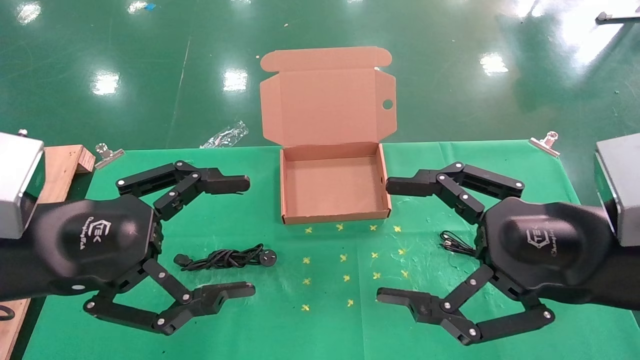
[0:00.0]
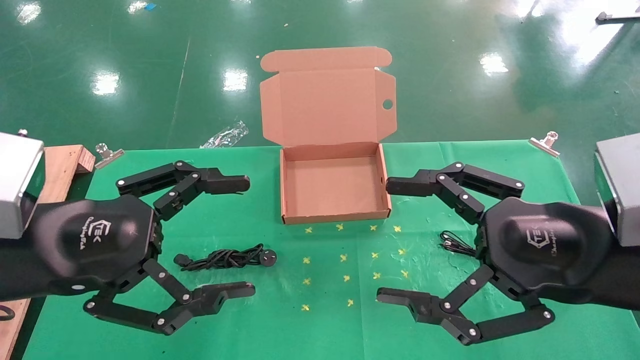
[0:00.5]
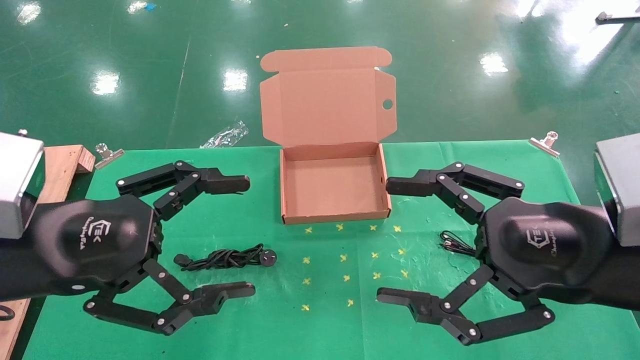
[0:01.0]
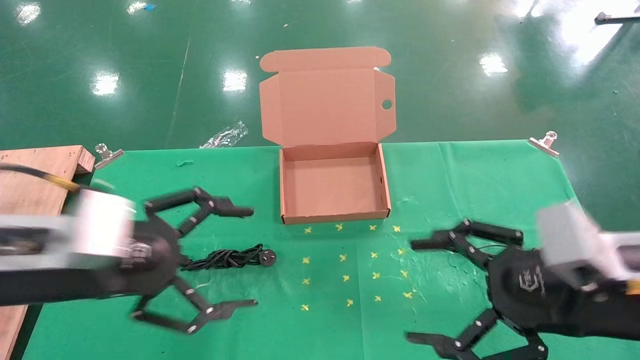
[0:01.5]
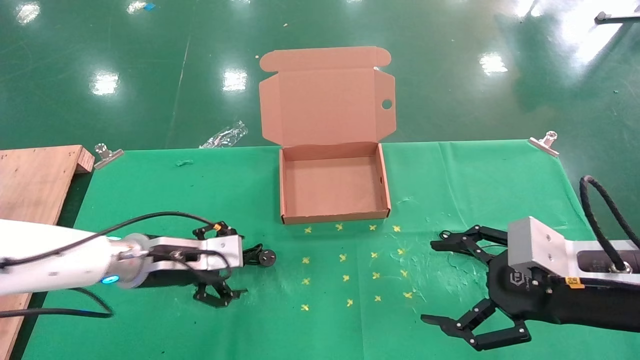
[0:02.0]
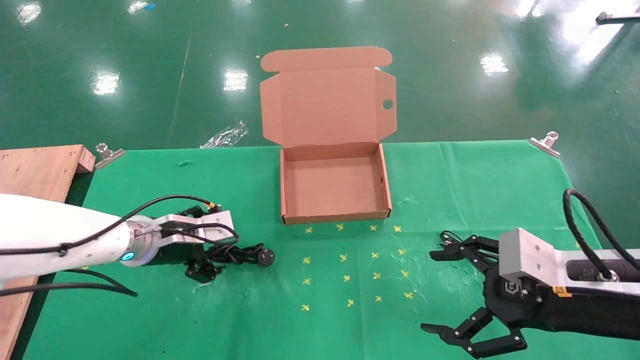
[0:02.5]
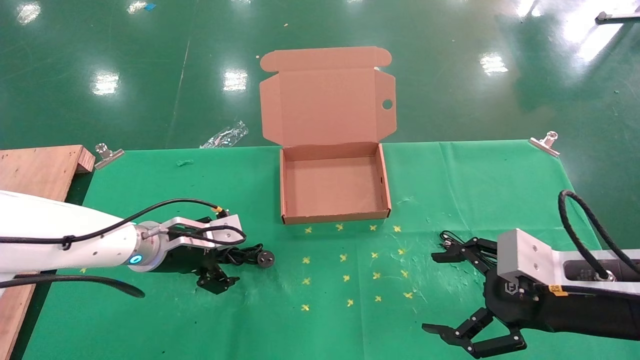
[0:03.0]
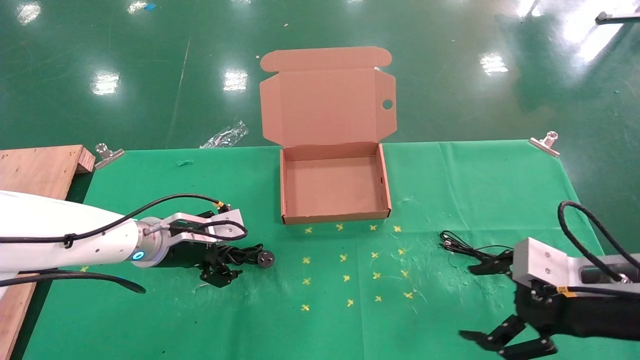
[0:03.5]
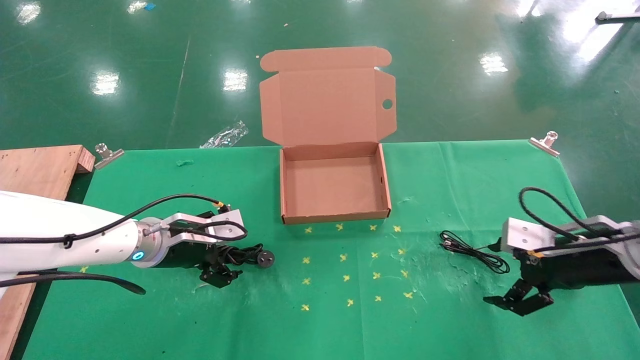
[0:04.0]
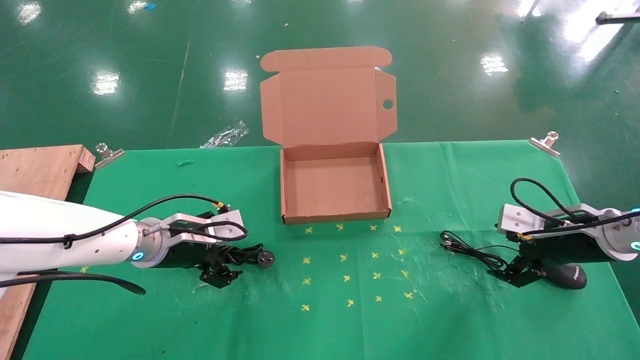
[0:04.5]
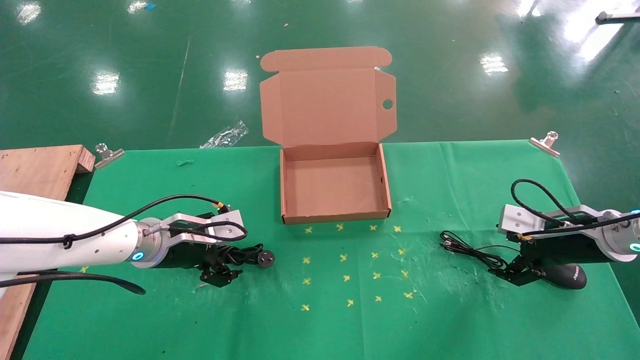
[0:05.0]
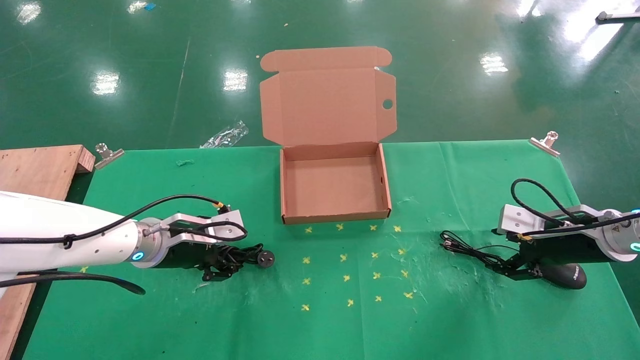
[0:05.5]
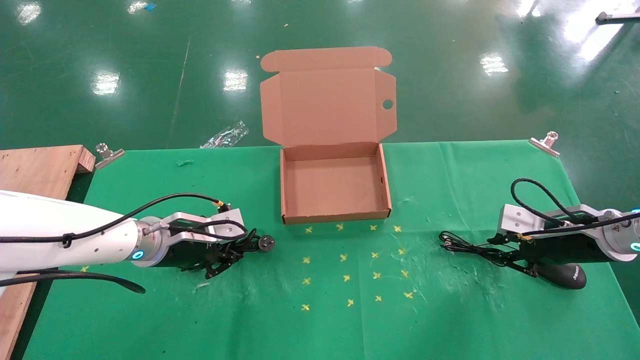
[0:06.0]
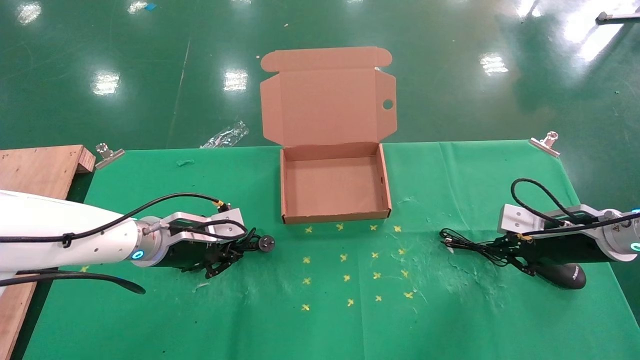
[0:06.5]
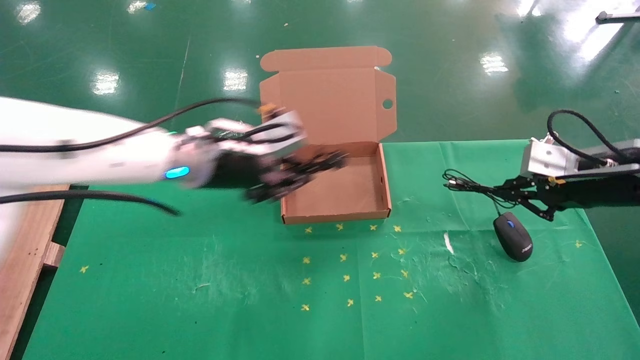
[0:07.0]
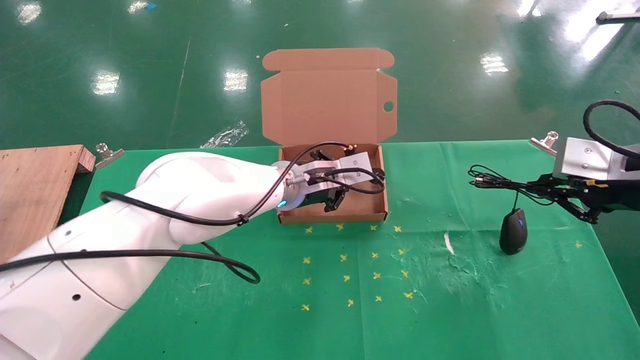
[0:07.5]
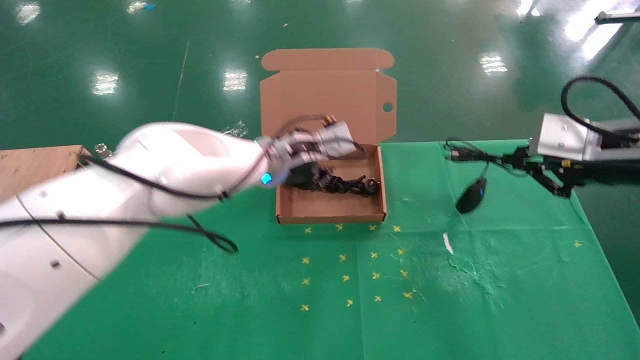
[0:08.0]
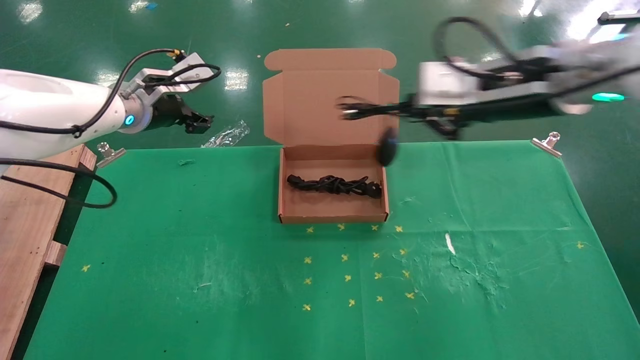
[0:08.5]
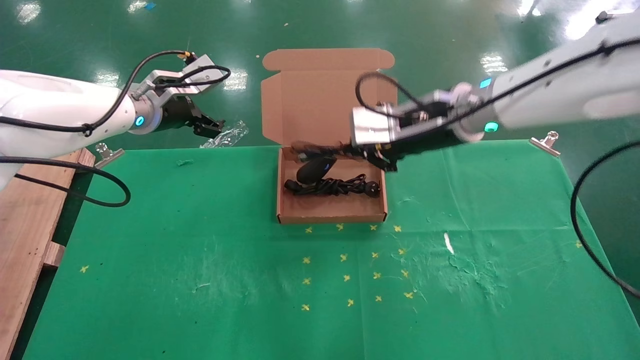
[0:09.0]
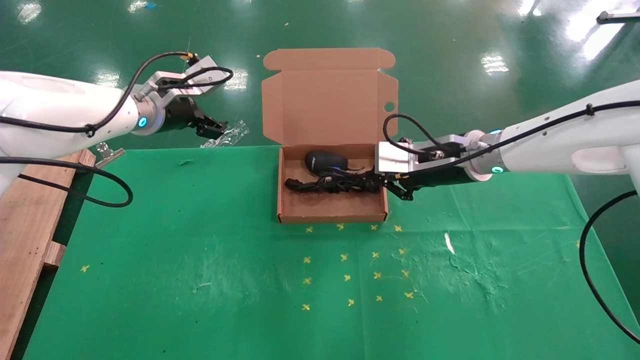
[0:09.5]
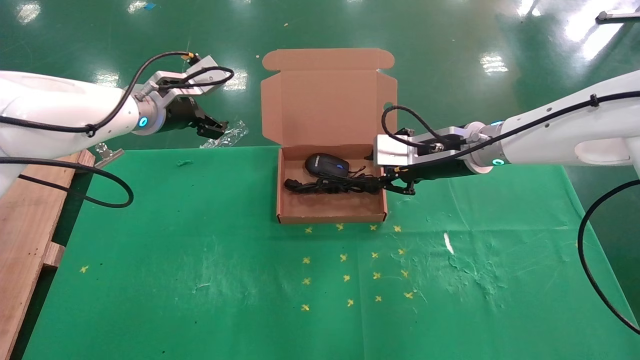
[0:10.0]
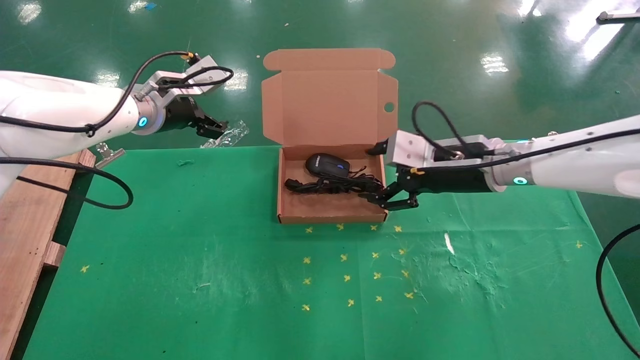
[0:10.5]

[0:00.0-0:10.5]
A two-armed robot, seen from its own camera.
Task of the whole recording: grasp data cable left put into box grasp mouse right put into box.
Step, 0:01.5 to 0:06.5: Simultaneously pick up the mouse and power cord from the accessory packaging area.
Step, 0:07.0 to 0:10.0: Place the mouse and power cord into the box.
0:00.0 to 0:02.0: The left gripper heads forward and downward, covering roughly 20 cm. The right gripper shifts roughly 5 cm downward.
0:02.0 to 0:04.0: The right gripper moves forward and to the right, roughly 15 cm.
0:04.0 to 0:06.5: The right gripper moves roughly 5 cm, and closes its fingers; the left gripper closes.
0:06.5 to 0:08.5: The left gripper travels upward and forward by about 20 cm, moves approximately 20 cm to the right and comes back, and opens its fingers. Meanwhile the right gripper moves upward and to the left, about 25 cm.
0:08.5 to 0:10.5: The left gripper opens its fingers. Meanwhile the right gripper shifts about 15 cm downward and forward, and opens its fingers.

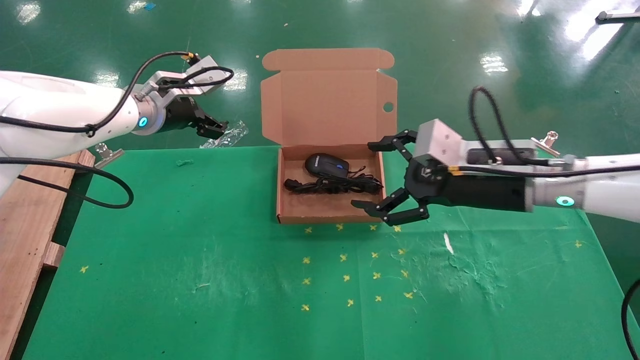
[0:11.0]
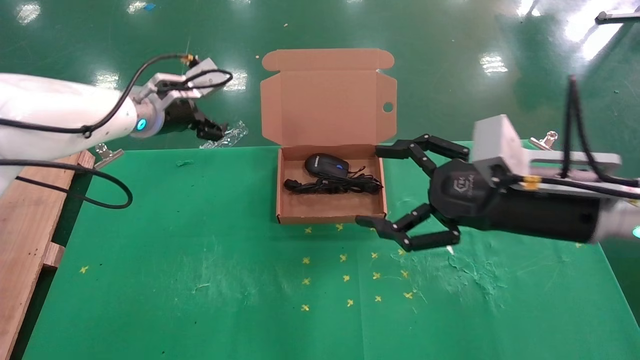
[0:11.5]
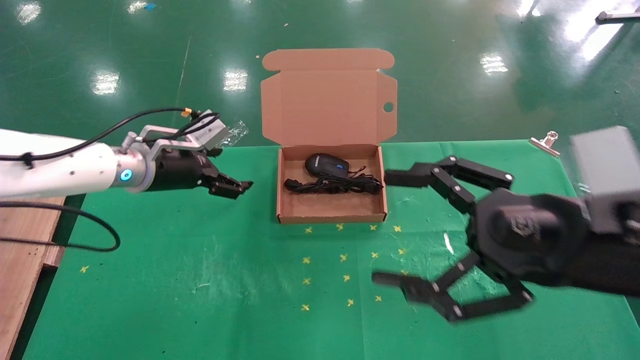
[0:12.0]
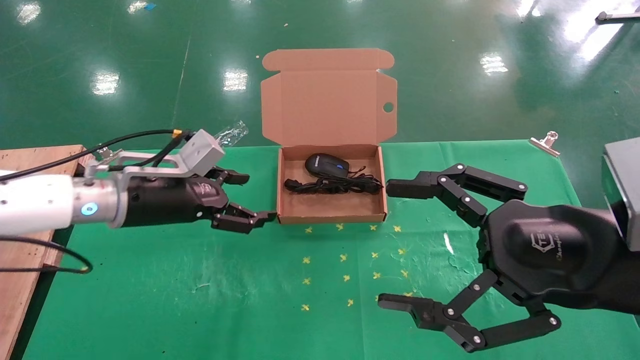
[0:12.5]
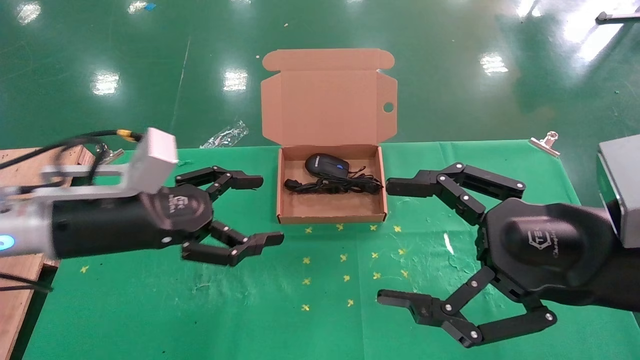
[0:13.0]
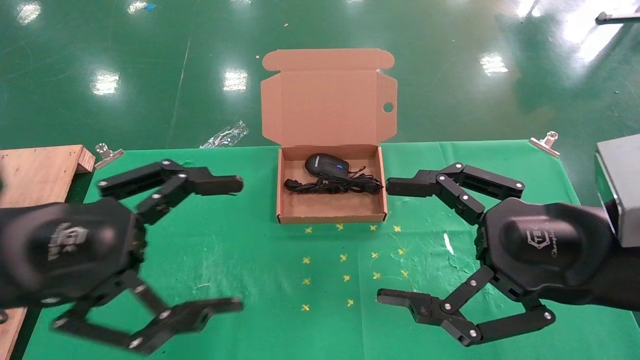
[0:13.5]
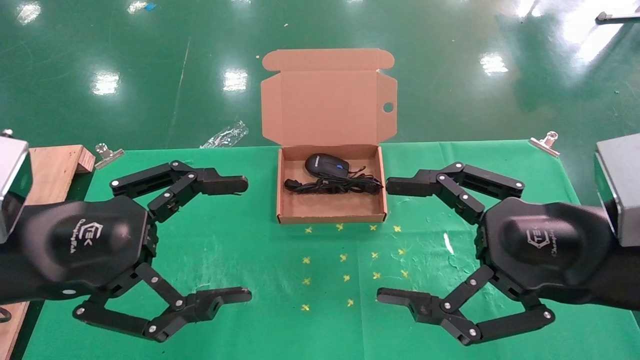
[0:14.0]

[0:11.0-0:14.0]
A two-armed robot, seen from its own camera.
Task of the whole recording: grasp data cable left put into box grasp mouse right put into box.
0:11.0 to 0:12.5: The right gripper moves backward, some 15 cm, while the left gripper is displaced backward and downward by roughly 15 cm.
0:12.5 to 0:14.0: The left gripper travels backward by roughly 15 cm.

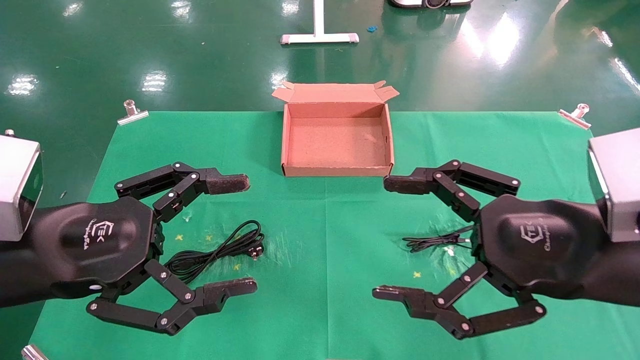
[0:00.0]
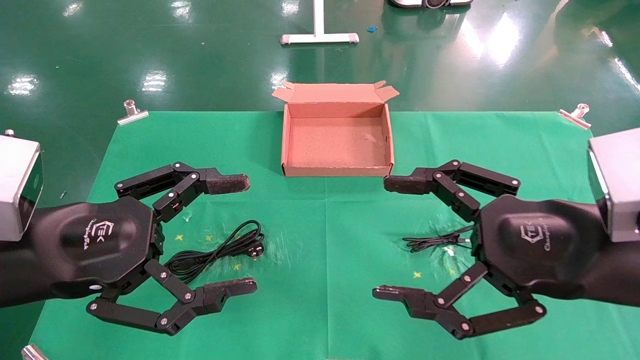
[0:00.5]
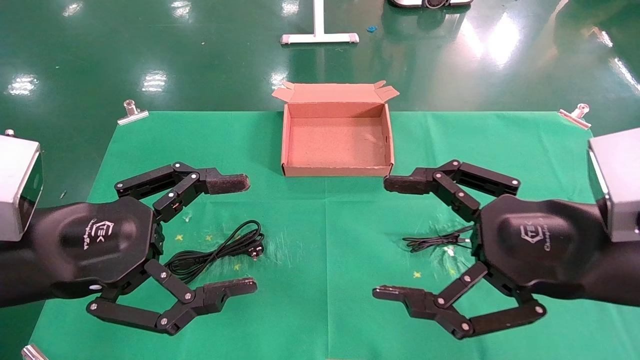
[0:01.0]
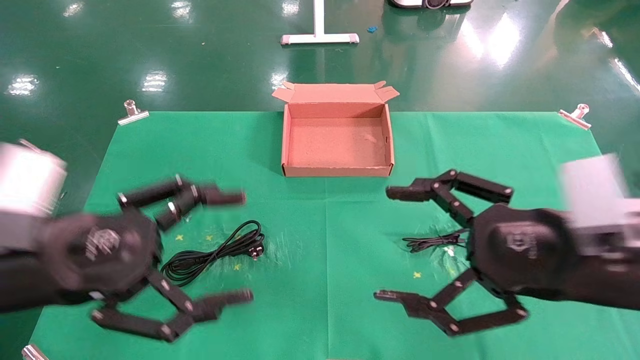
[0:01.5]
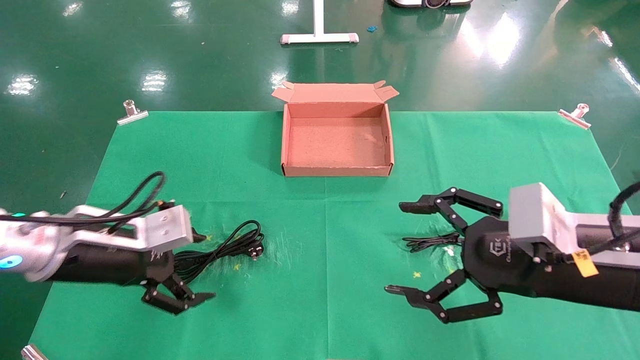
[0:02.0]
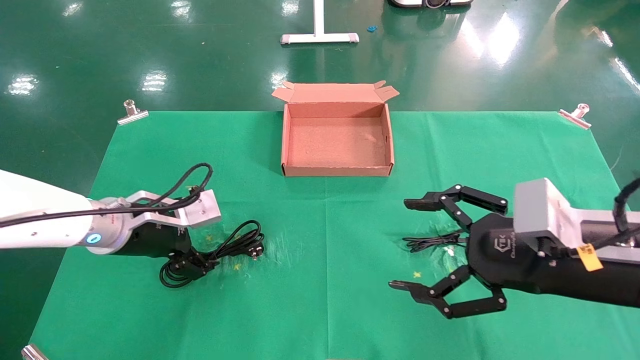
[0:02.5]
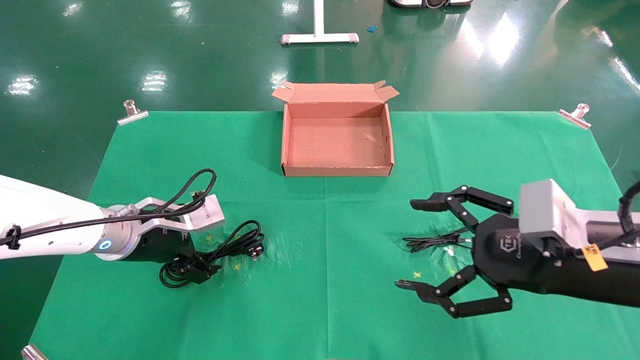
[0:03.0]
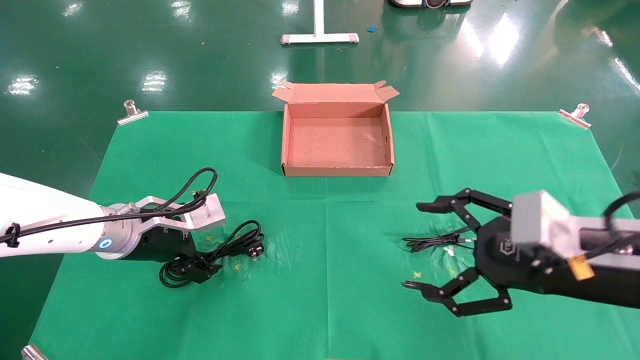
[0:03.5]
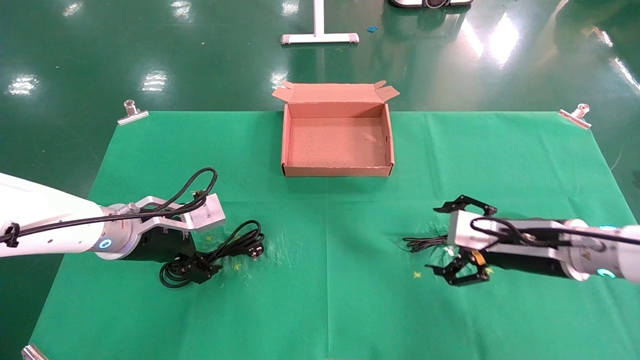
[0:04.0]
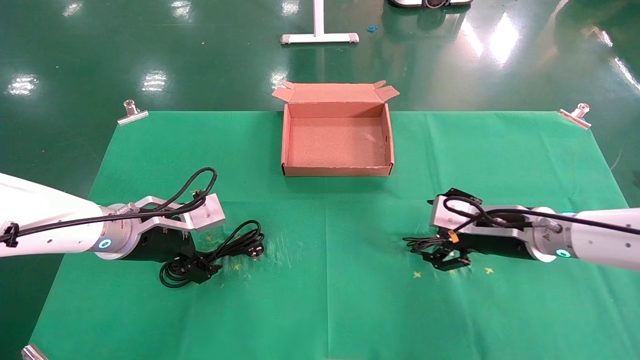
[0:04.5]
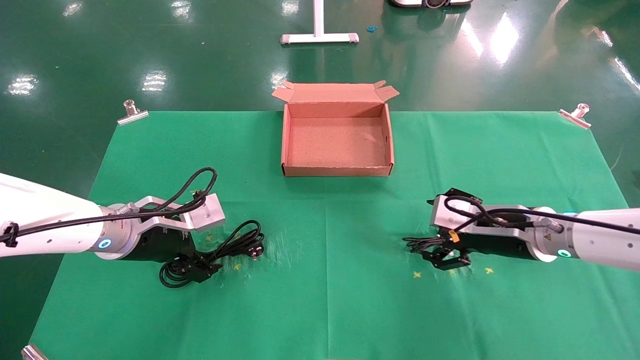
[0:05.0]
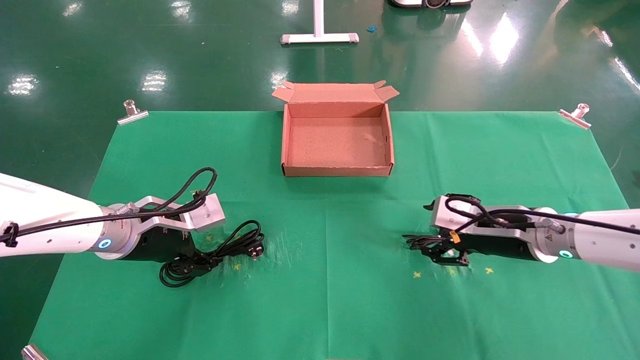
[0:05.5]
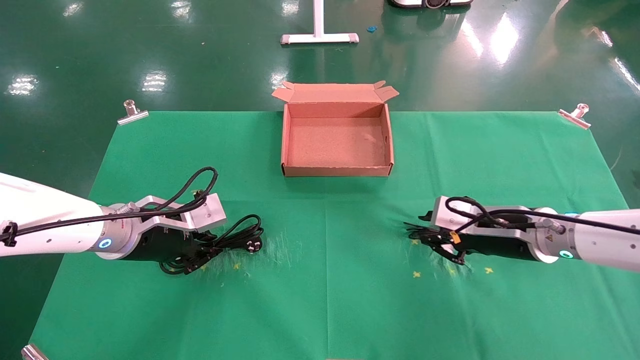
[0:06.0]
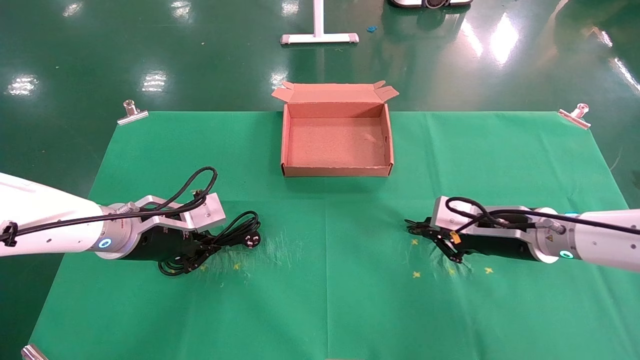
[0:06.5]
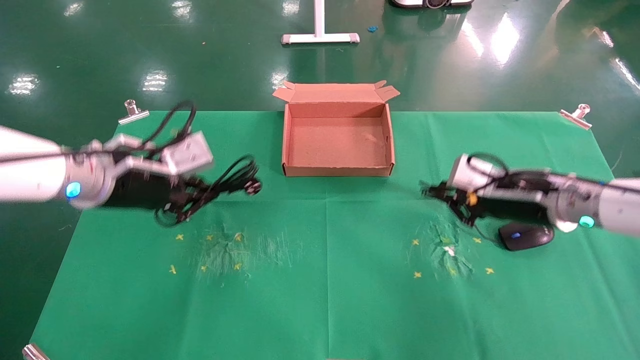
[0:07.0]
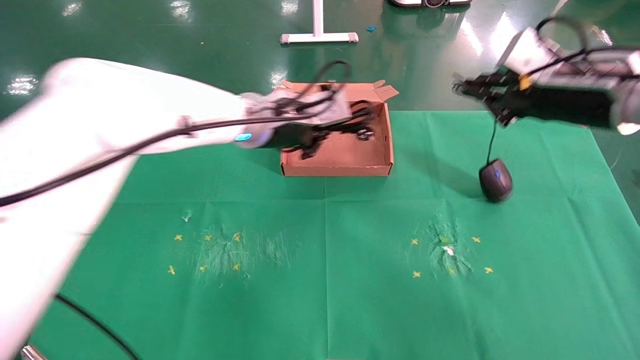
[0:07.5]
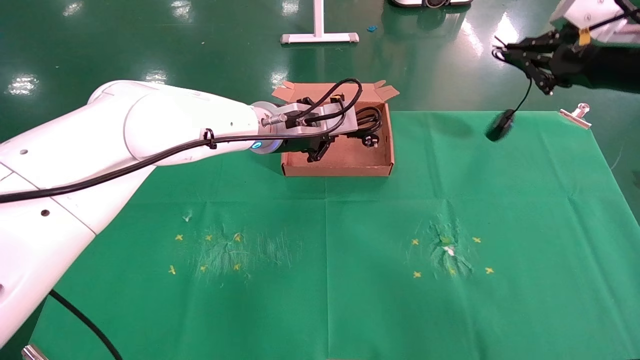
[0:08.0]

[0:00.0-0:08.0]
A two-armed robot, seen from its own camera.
Task of the whole recording: grasp data cable left put into box grasp mouse right put into box.
Step, 0:02.0 to 0:06.5: Simultaneously pick up the mouse and power cord from the accessory packaging area.
0:00.0 to 0:02.0: The left gripper moves forward and downward, some 10 cm; the right gripper changes place by some 5 cm.
0:02.0 to 0:04.0: The left gripper goes some 5 cm forward, while the right gripper goes some 10 cm forward and downward.
0:04.0 to 0:06.0: The left gripper closes, while the right gripper closes up.
0:06.0 to 0:08.0: The left gripper goes approximately 25 cm to the right, upward and forward, while the right gripper heads upward and to the right, covering approximately 25 cm, and closes up.
